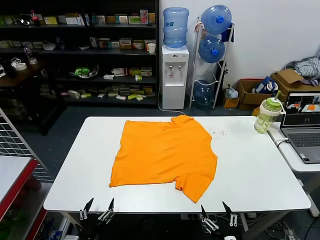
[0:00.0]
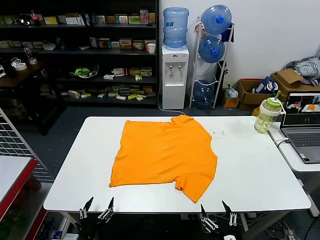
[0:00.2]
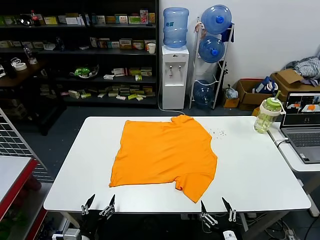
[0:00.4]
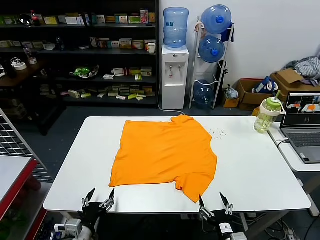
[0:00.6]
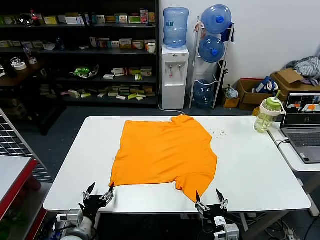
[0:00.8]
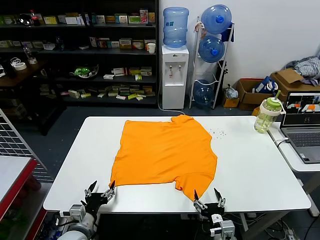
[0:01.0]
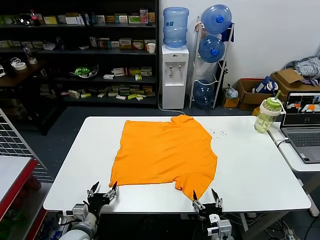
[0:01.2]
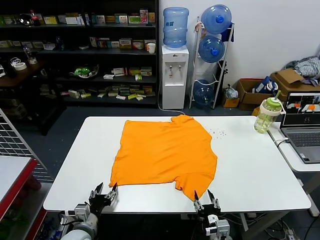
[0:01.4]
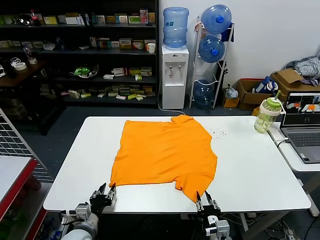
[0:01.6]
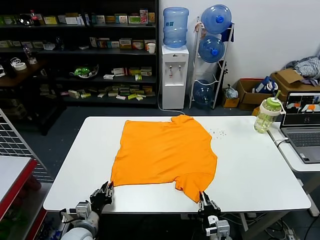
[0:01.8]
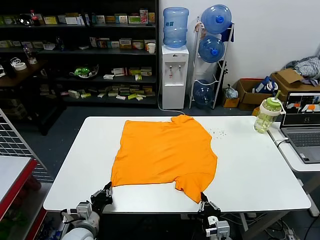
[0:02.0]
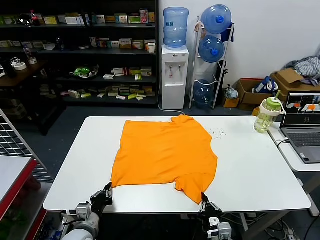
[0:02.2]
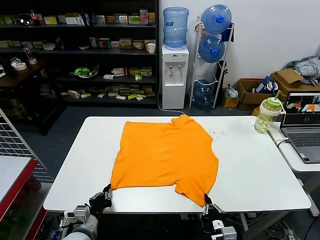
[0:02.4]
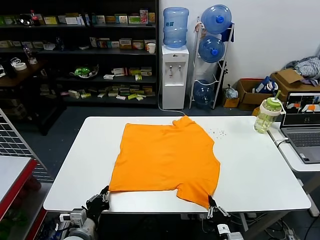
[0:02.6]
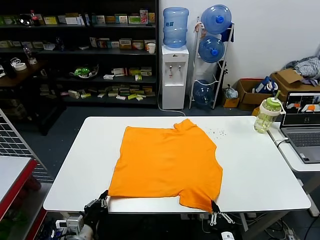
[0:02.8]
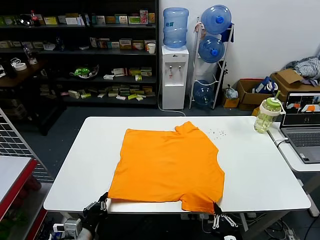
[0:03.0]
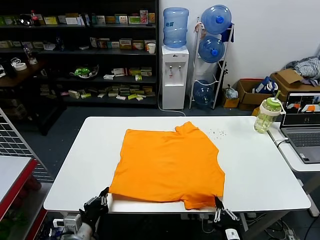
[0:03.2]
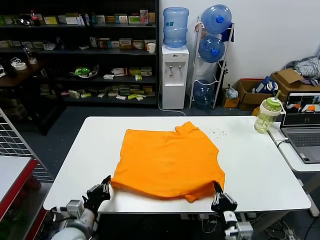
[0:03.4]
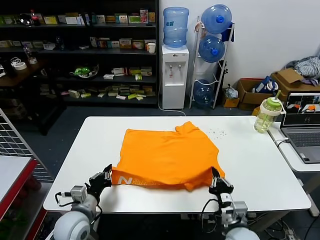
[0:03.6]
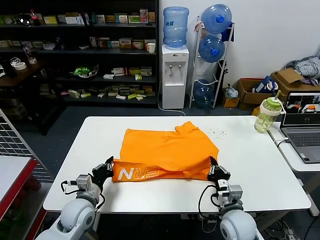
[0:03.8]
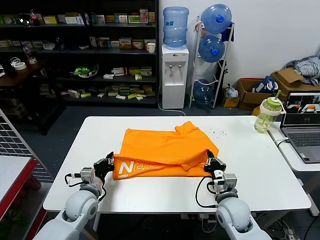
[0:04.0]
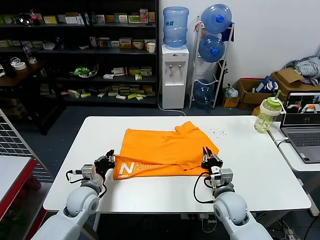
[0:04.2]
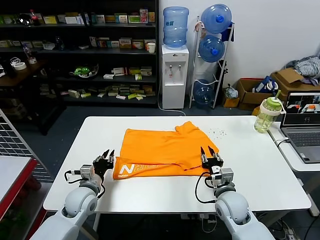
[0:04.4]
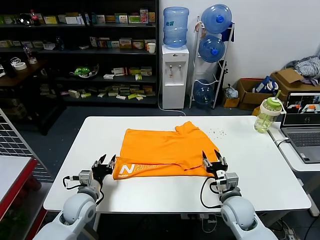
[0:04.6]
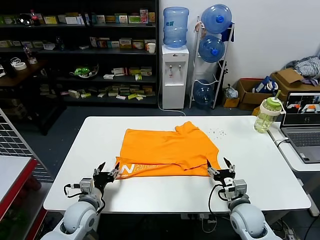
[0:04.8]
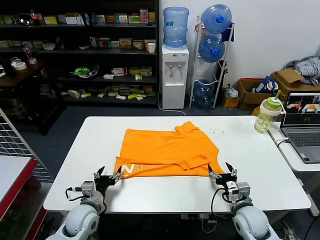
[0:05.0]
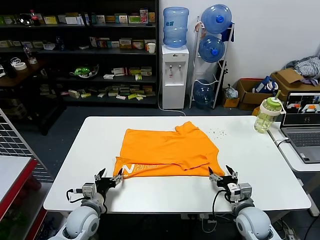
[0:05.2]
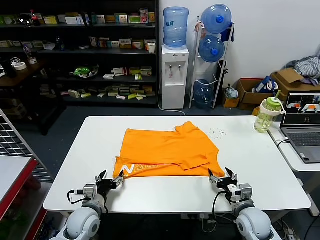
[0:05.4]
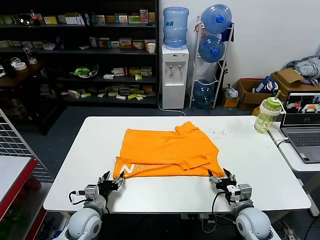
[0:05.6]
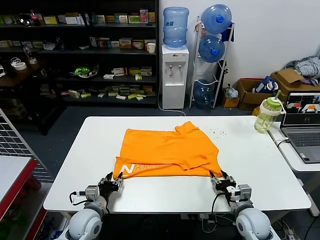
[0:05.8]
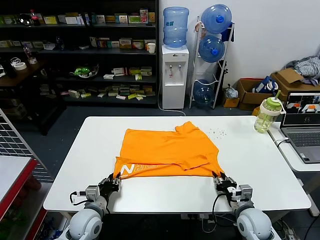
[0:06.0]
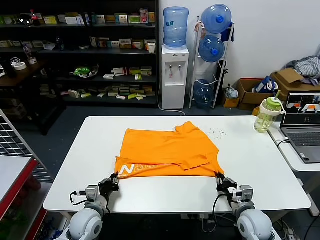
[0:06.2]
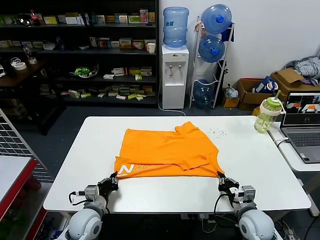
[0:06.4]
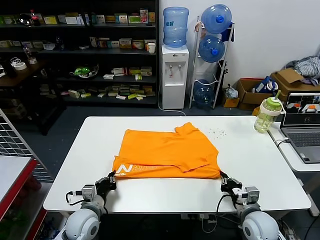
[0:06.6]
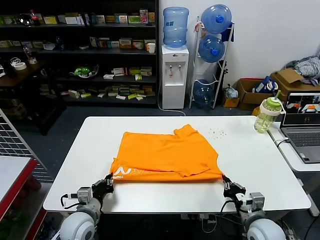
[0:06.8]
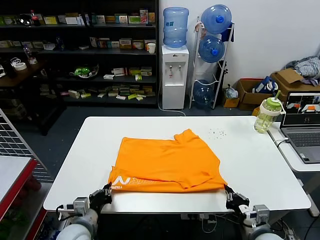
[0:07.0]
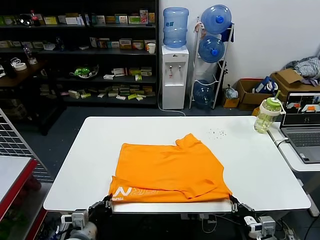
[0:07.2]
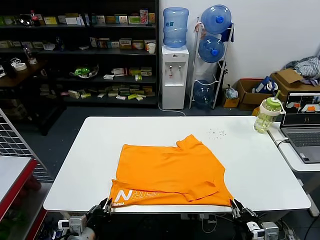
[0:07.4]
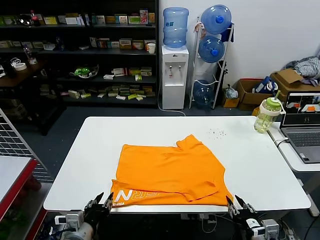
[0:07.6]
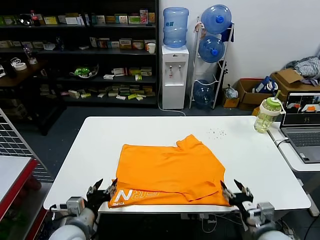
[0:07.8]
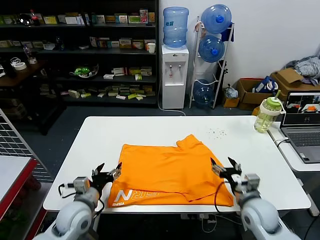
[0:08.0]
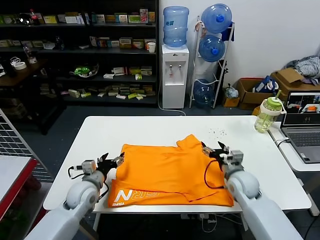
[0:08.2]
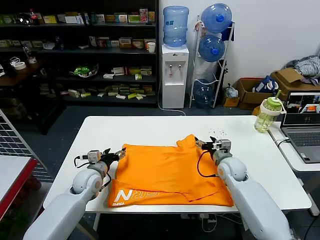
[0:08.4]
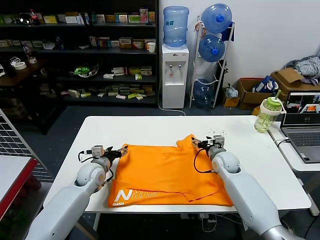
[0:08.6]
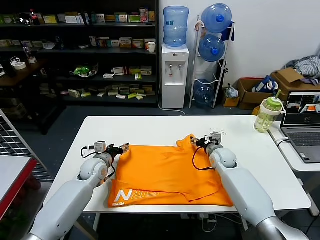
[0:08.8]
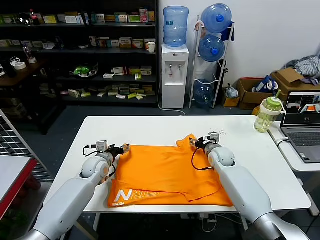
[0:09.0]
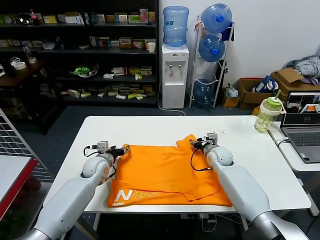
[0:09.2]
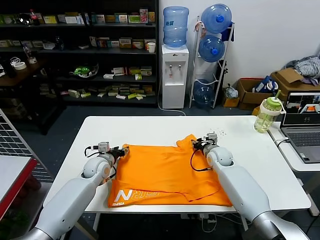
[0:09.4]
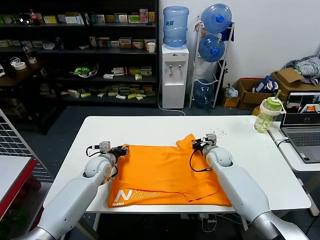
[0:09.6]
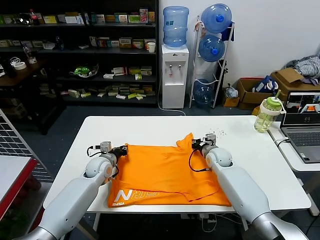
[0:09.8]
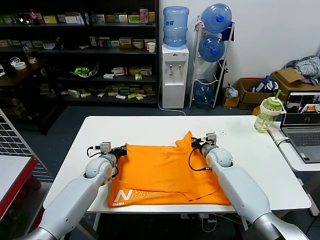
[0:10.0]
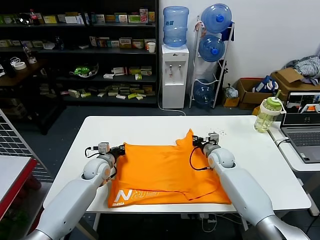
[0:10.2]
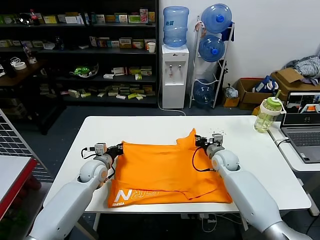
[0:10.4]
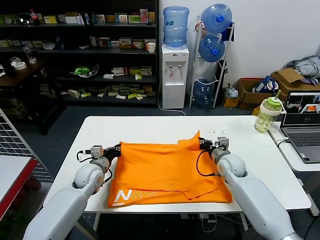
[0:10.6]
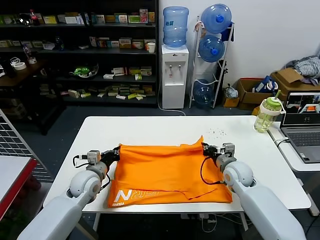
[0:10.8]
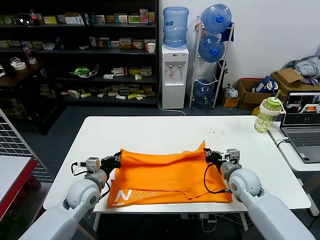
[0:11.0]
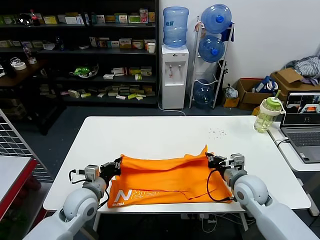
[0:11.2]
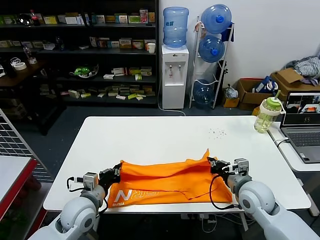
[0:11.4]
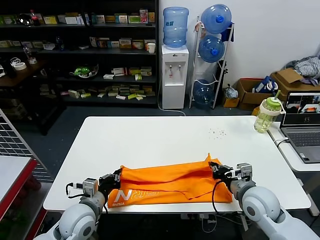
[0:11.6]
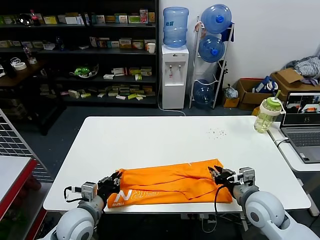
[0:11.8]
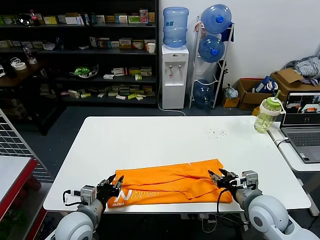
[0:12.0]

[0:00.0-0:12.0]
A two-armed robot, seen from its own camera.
Task of the whole recording: fold and organize the clothes.
Step, 0:00.0 to 0:02.0: use both grippers simultaneously to clamp the lower edge of the clothing fabric.
Step, 0:02.2 to 0:04.2: use both grippers to drag the lower edge of the fabric forward and fold it over the upper edge.
Step, 0:04.4 to 0:07.4: Drag the clothes downward with both gripper.
Step, 0:07.6 to 0:09.8: use both grippers simultaneously to clamp the upper edge of the clothing fabric.
Step, 0:10.0 to 0:11.8: use both grippers to drag the upper edge of the fabric backward and fold it over the lower edge.
0:01.6 to 0:03.0: The left gripper shifts roughly 5 cm backward, and closes up, while the right gripper goes about 10 cm backward and upward, and closes up.
0:03.0 to 0:04.4: Both grippers travel together forward, some 20 cm. The right gripper opens up.
0:04.4 to 0:06.0: The right gripper goes about 5 cm to the right, and opens, then closes once more, while the left gripper is displaced backward by approximately 5 cm, and opens, then closes again.
0:06.0 to 0:07.6: The grippers both shift backward and upward by approximately 15 cm. The left gripper closes and opens again. The right gripper closes and opens again.
0:07.6 to 0:09.0: Both grippers travel together forward, roughly 35 cm. The left gripper opens; the right gripper opens up.
0:09.0 to 0:10.4: The left gripper closes. Meanwhile the right gripper closes its fingers.
0:10.4 to 0:12.0: The grippers both shift backward by about 20 cm. The left gripper opens up, while the right gripper opens.

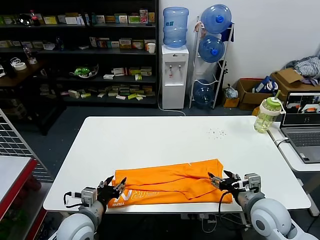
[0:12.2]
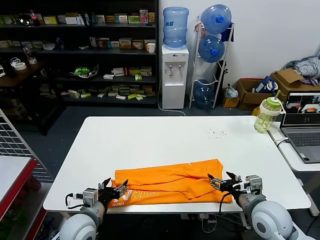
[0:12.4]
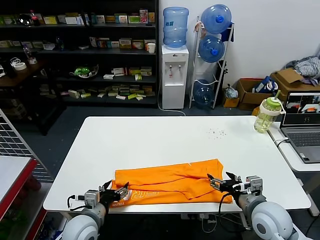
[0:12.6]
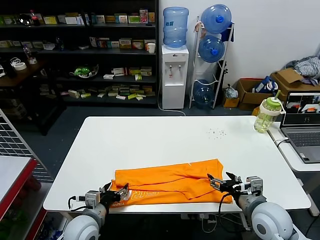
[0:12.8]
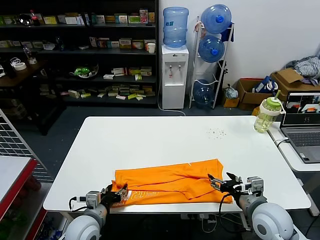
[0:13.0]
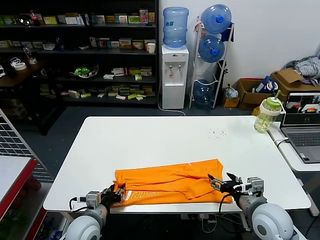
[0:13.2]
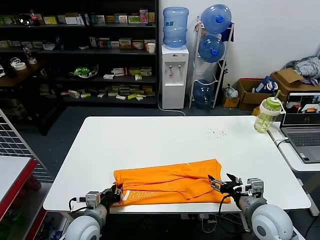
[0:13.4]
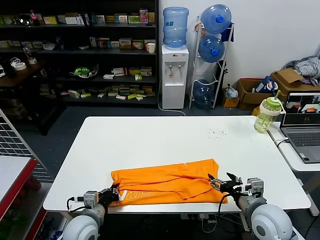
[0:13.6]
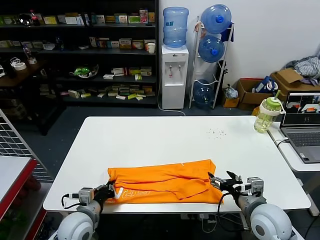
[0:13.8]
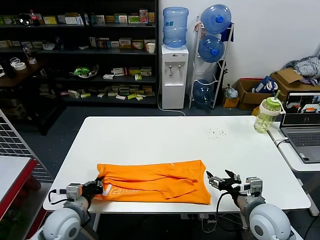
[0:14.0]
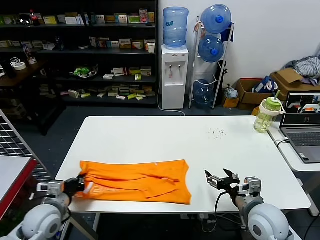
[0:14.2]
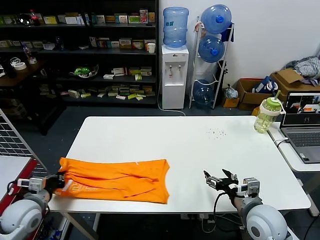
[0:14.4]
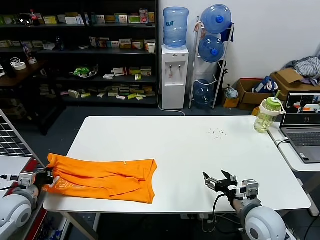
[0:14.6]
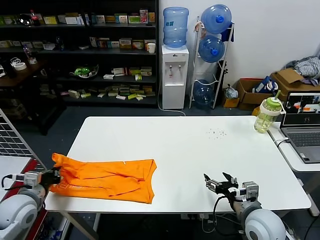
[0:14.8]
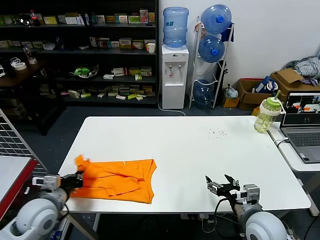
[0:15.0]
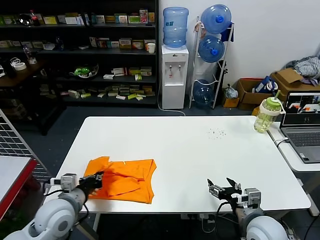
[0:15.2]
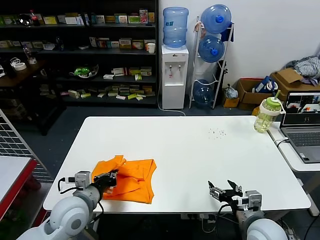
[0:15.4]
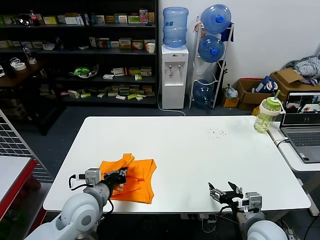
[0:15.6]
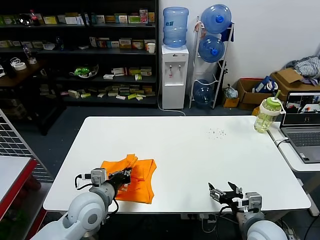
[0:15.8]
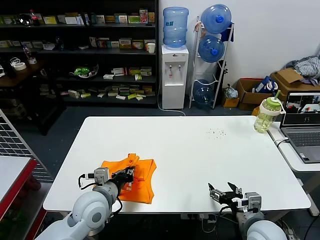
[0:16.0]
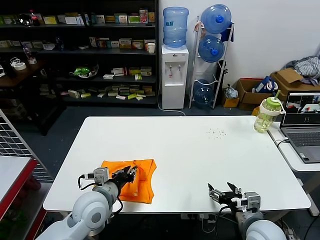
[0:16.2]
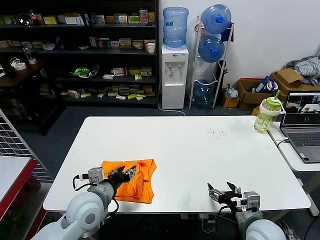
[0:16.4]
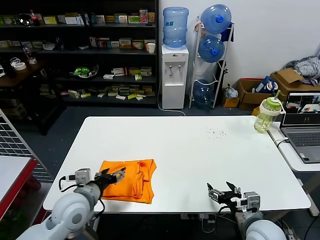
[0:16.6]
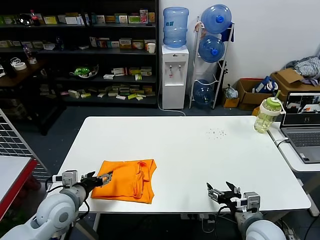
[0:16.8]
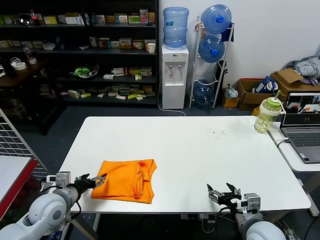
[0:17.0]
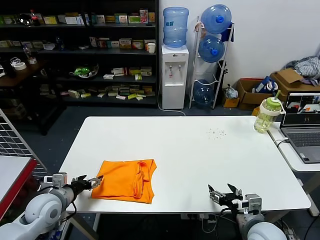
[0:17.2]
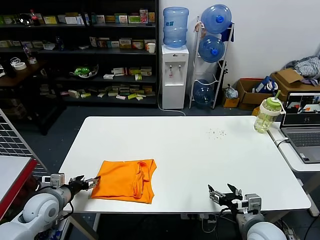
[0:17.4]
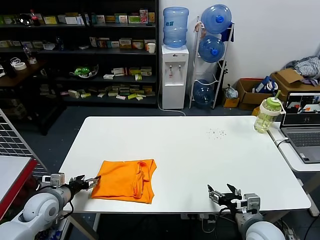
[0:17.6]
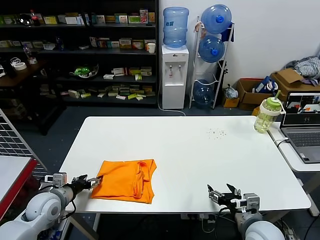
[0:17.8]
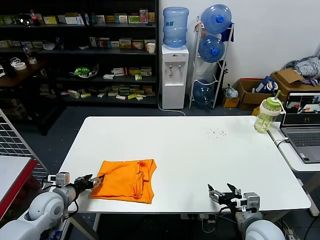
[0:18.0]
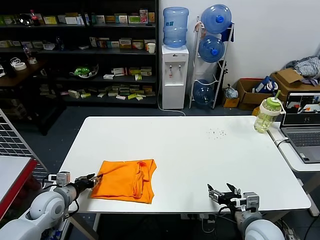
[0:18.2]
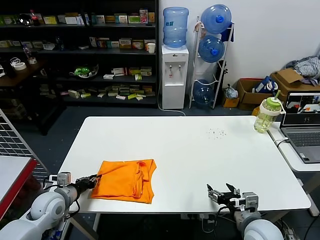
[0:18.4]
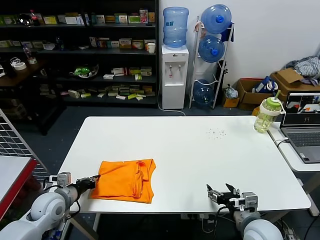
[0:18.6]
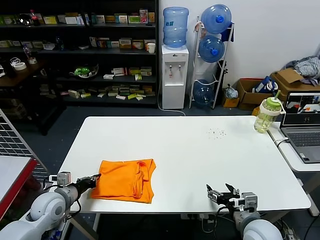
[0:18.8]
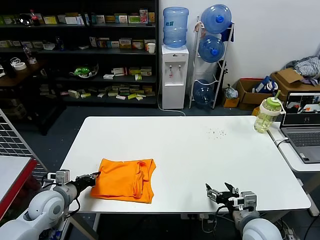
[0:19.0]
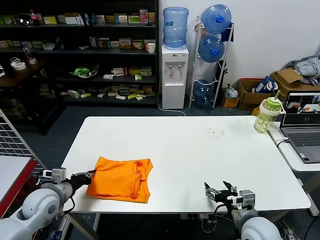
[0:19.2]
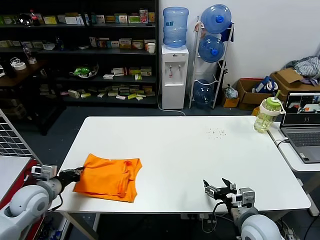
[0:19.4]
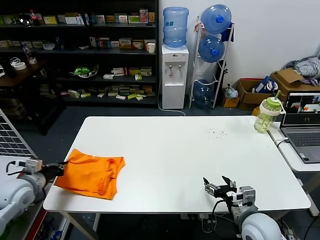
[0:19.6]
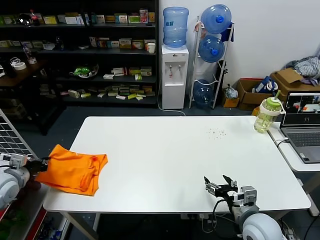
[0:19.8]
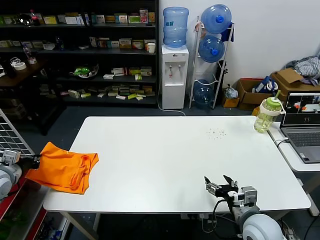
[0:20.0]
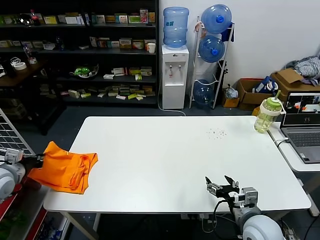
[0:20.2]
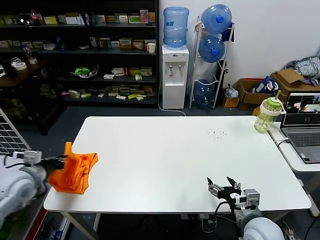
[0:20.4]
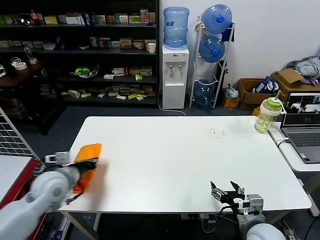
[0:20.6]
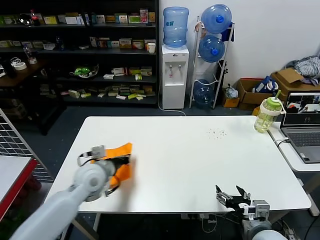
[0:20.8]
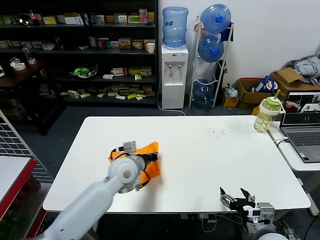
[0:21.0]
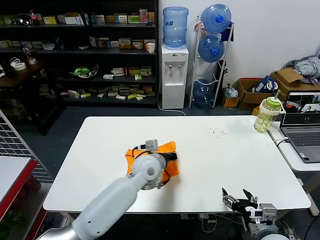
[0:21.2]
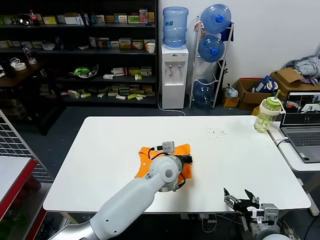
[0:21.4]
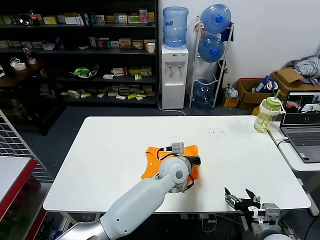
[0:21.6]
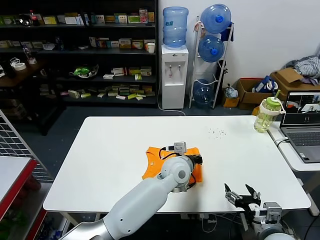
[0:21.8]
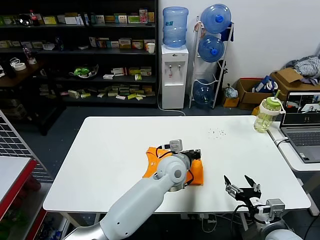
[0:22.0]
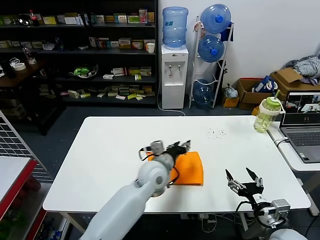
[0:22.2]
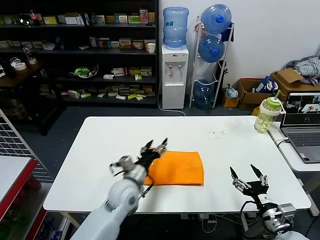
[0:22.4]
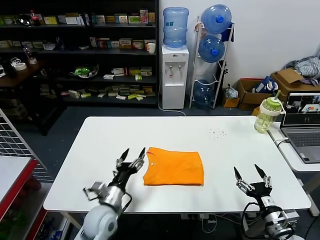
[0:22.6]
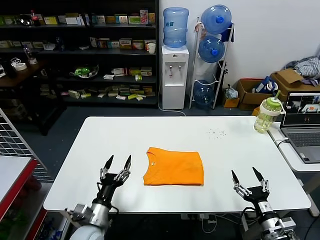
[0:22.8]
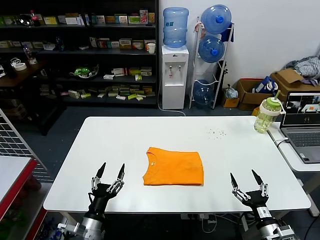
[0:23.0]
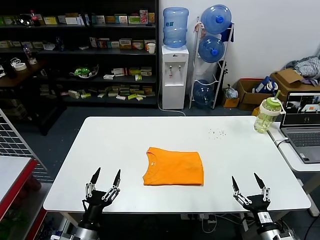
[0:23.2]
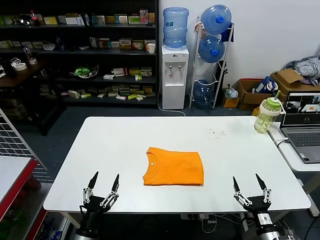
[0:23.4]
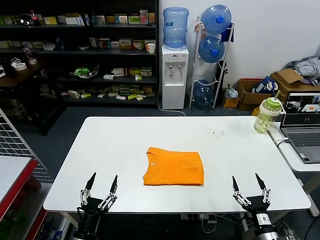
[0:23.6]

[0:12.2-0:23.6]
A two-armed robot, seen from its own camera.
Task of the whole recording: fold and organize the clothes.
Step, 0:12.2 to 0:13.6: use the left gripper to clamp the left edge of the fabric.
Step, 0:13.8 to 0:16.2: use the left gripper to drag the left edge of the fabric to the left and folds it over the right edge.
Step, 0:16.4 to 0:21.8: Flip the folded clothes over with left gripper.
0:12.2 to 0:13.6: The left gripper travels downward by roughly 5 cm, and closes.
0:13.6 to 0:15.0: The left gripper moves to the left and upward, approximately 15 cm.
0:15.0 to 0:16.4: The left gripper is displaced to the right by roughly 15 cm, and opens.
0:16.4 to 0:17.8: The left gripper travels to the left by some 20 cm, and opens up.
0:17.8 to 0:19.4: The left gripper closes up.
0:19.4 to 0:20.8: The left gripper shifts some 10 cm to the right.
0:20.8 to 0:22.2: The left gripper is displaced to the right by about 25 cm, and opens its fingers.
0:22.2 to 0:23.6: The left gripper heads backward, to the left and downward, covering about 40 cm, and opens up, while the right gripper shifts approximately 10 cm downward.
